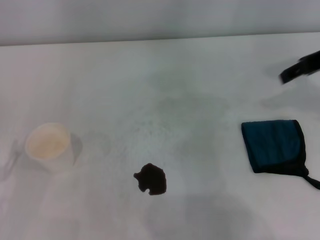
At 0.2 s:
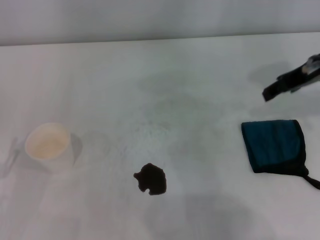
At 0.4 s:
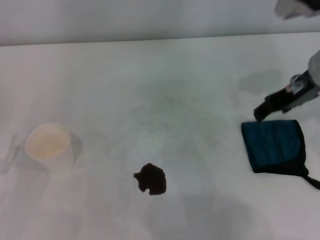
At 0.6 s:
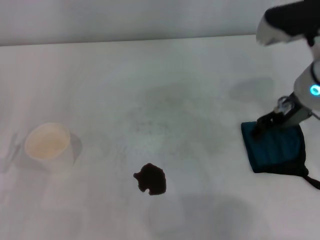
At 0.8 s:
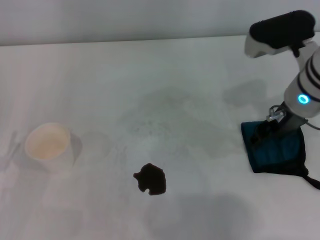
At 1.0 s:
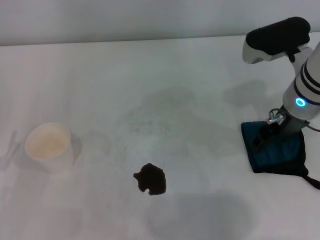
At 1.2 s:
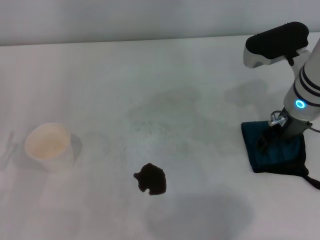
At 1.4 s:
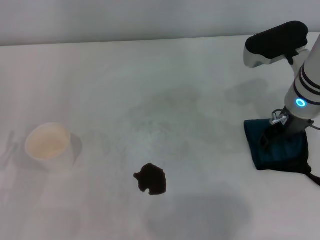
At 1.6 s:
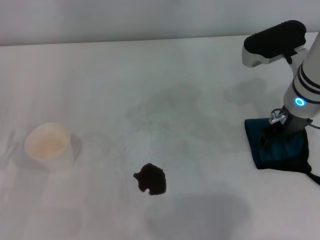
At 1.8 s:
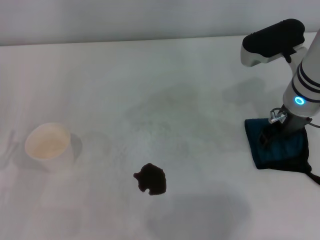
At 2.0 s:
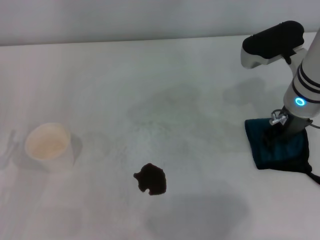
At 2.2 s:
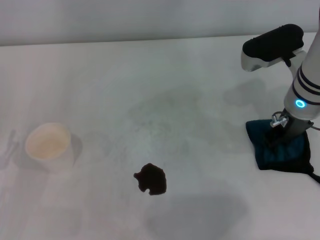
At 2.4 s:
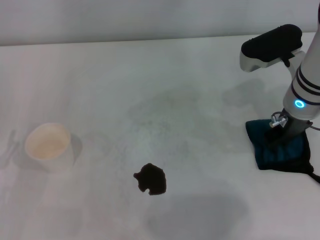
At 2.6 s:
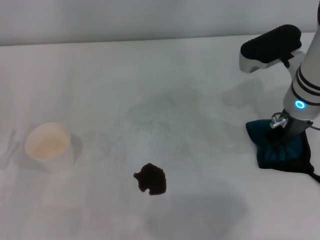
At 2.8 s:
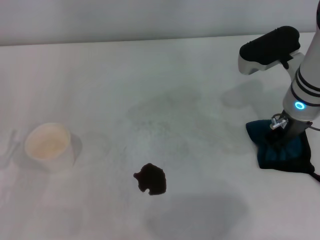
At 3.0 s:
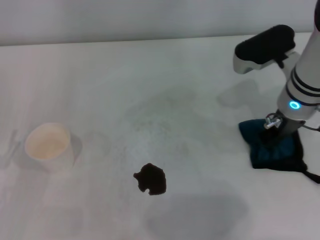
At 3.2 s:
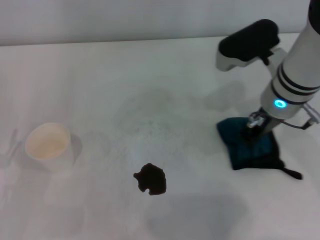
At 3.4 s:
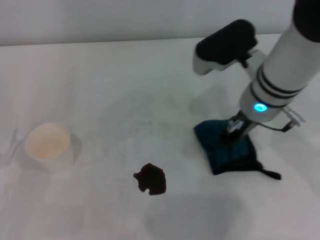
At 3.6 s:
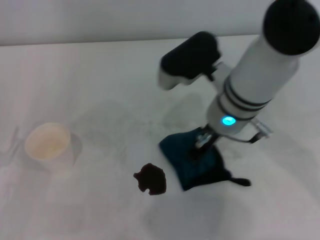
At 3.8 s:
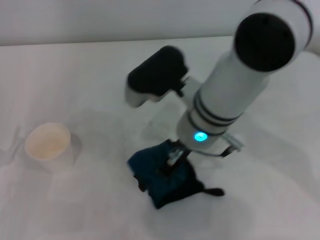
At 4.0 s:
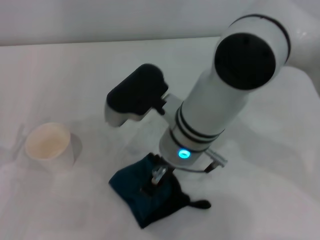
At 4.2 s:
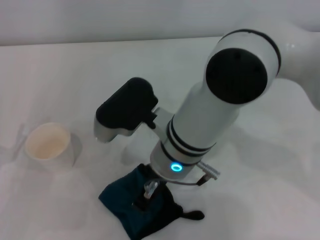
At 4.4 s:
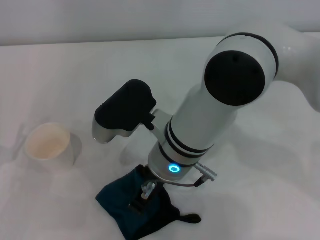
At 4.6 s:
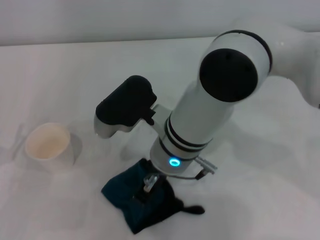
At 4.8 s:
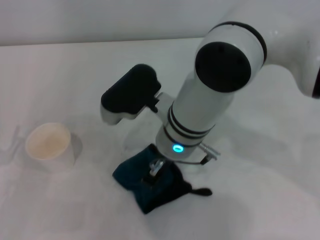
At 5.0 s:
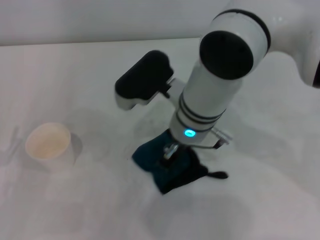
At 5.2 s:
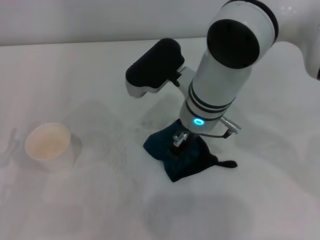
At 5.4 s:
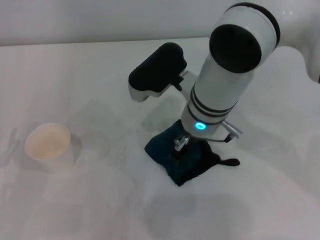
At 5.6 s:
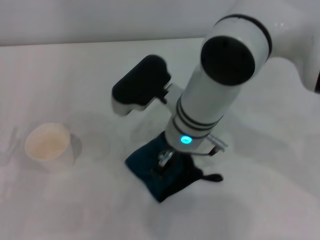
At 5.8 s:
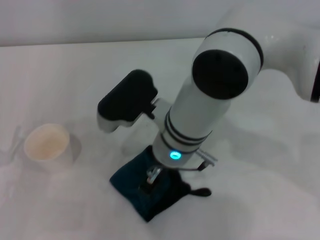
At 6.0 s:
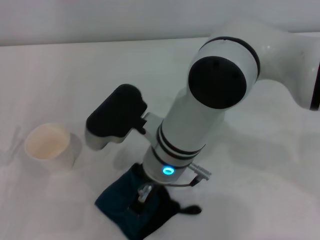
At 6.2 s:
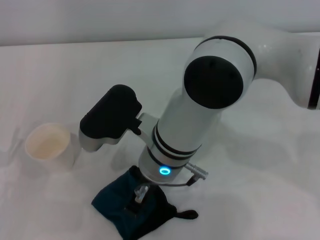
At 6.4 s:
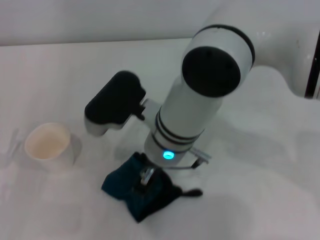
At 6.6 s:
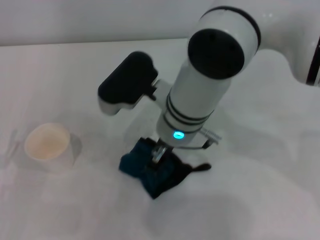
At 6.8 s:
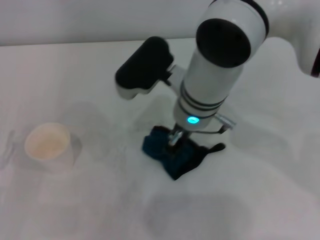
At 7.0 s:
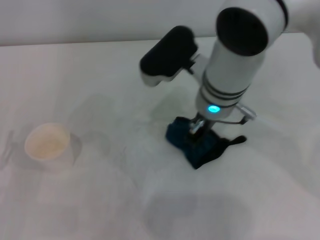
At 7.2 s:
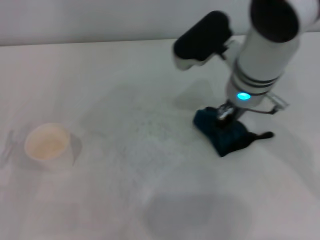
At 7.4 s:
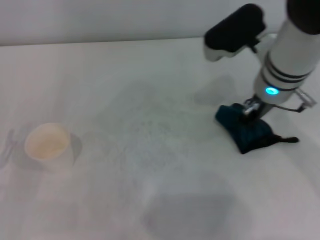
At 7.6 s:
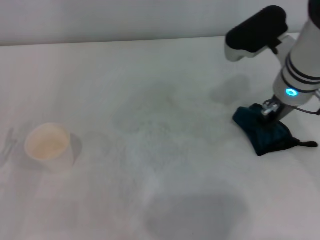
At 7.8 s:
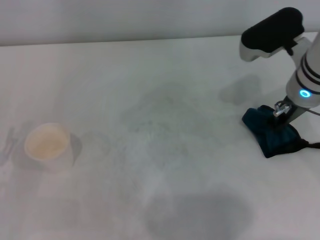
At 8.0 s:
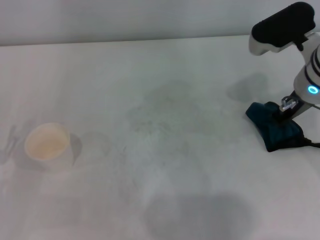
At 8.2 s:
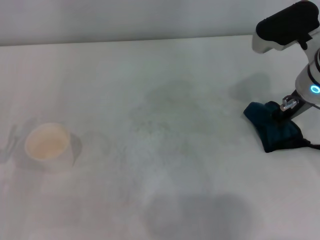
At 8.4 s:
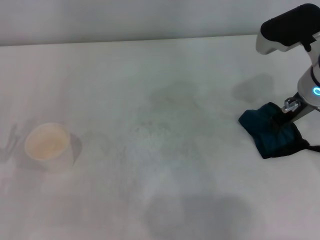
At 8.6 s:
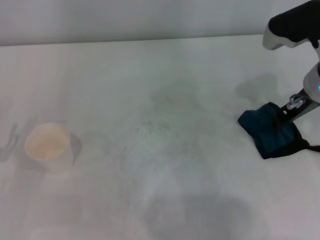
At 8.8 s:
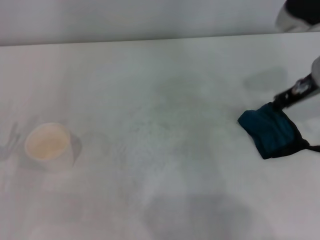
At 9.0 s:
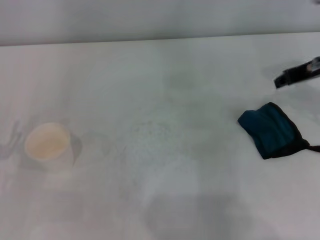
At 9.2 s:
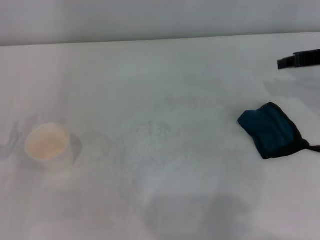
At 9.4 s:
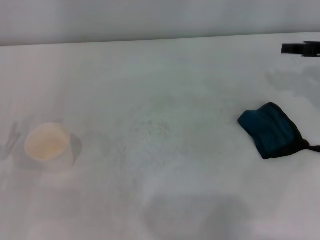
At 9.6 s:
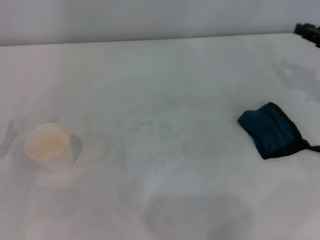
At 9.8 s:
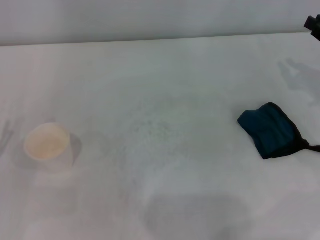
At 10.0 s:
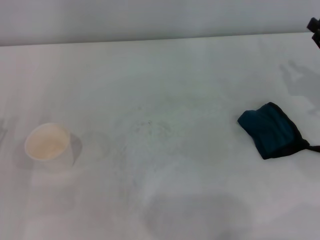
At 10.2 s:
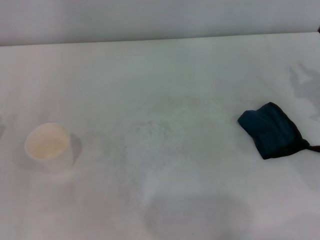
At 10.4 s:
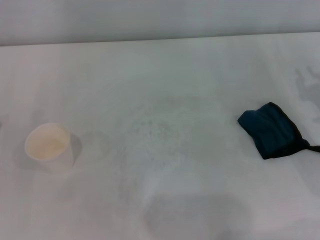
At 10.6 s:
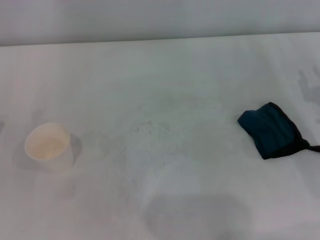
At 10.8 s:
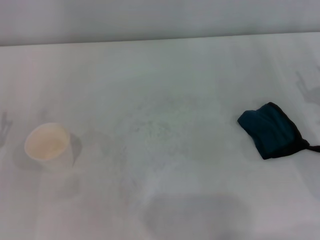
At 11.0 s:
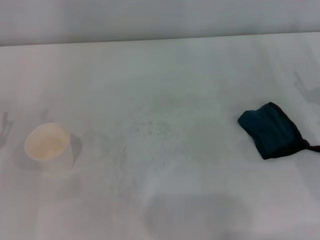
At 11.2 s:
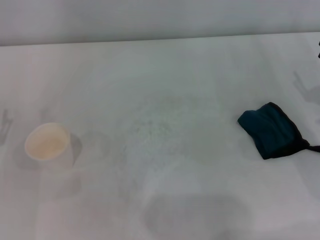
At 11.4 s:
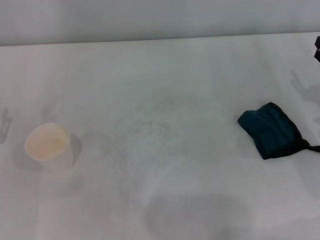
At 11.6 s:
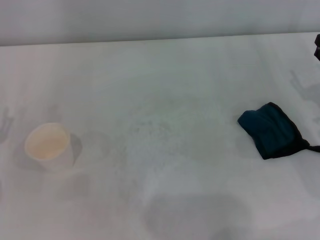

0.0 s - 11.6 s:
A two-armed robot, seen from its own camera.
Step, 0.0 s - 2.8 s: Grasp the rag with the right gripper.
Step, 3.0 s - 7.4 s: Wipe the stains off the table with the right gripper.
Step, 7.6 s - 8.2 s: Place the rag on the table with the right gripper.
0.0 s - 1.4 s: The right gripper shifts approximately 10 cm downward and to the left.
1.4 s - 2.8 s: The right gripper closes up.
2.8 s - 4.4 s: The right gripper travels to the left by about 20 cm.
5.8 s - 7.2 s: The right gripper shifts approximately 10 cm to the right and forward.
7.2 s - 8.8 s: The right gripper moves to the right, about 15 cm.
8.8 s - 10.2 s: The right gripper is displaced to the right, downward and backward by about 15 cm.
